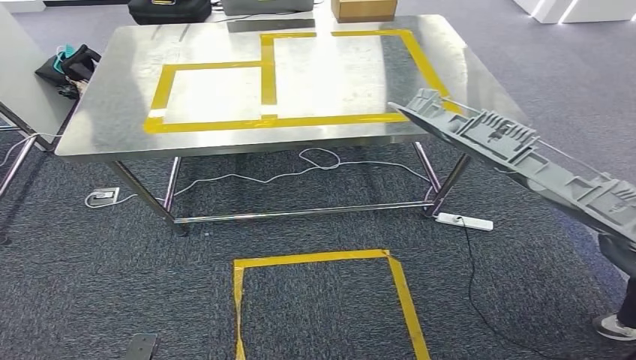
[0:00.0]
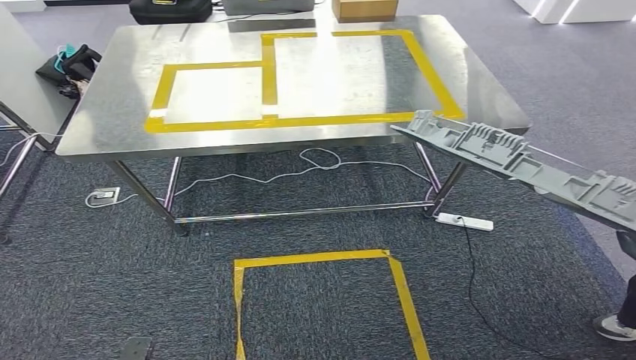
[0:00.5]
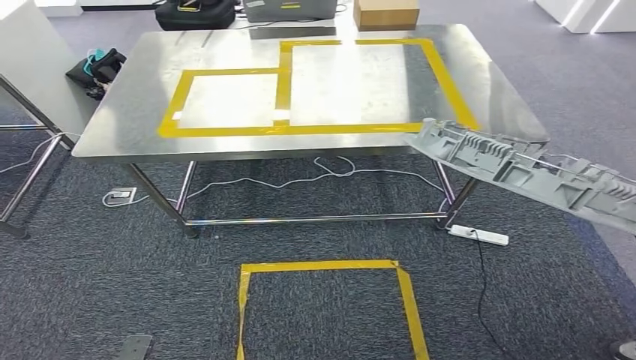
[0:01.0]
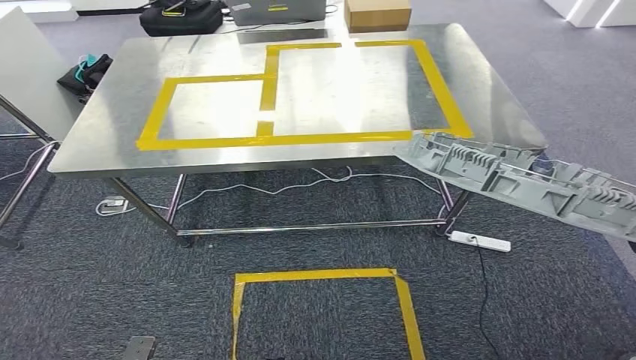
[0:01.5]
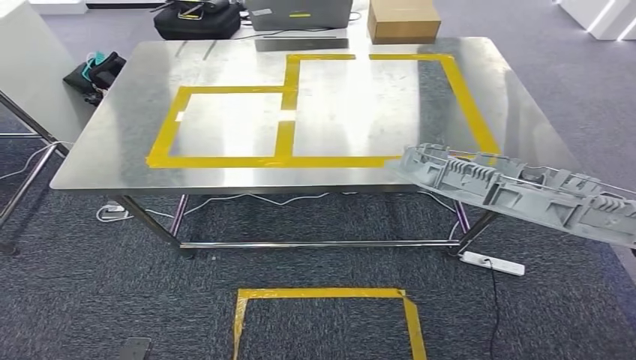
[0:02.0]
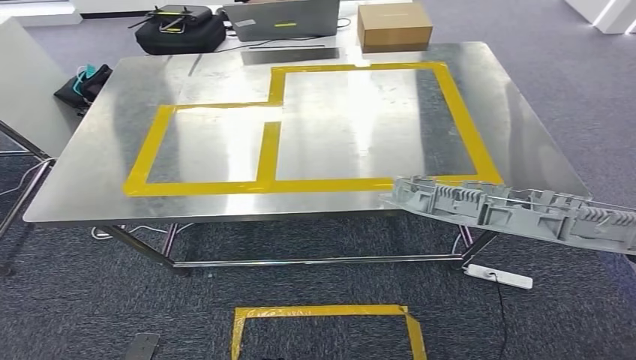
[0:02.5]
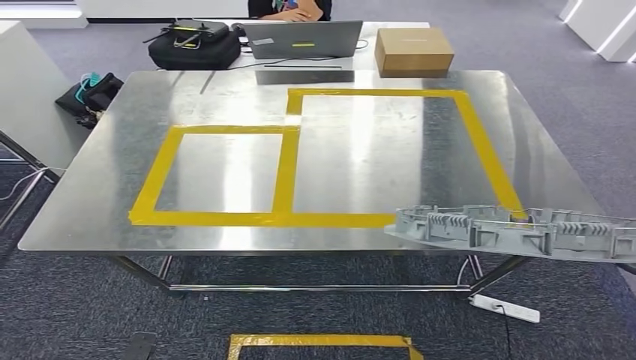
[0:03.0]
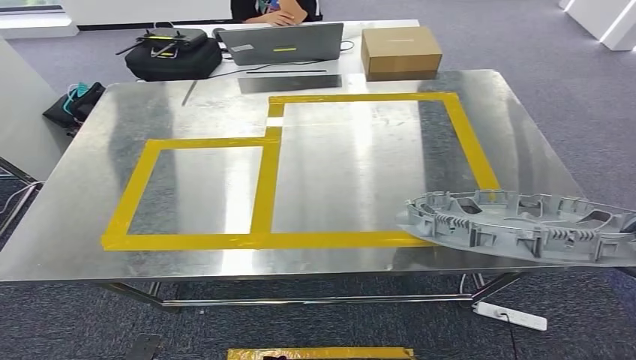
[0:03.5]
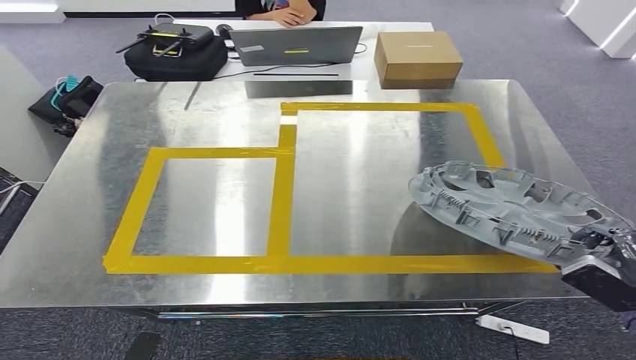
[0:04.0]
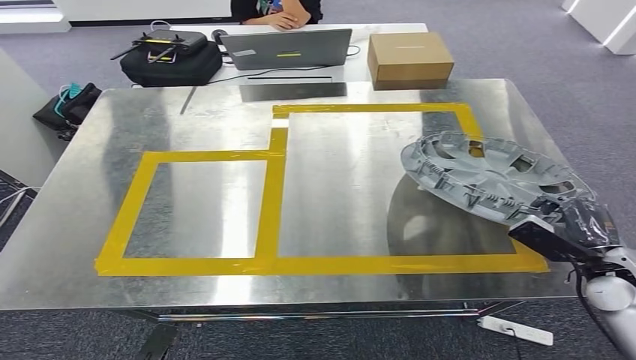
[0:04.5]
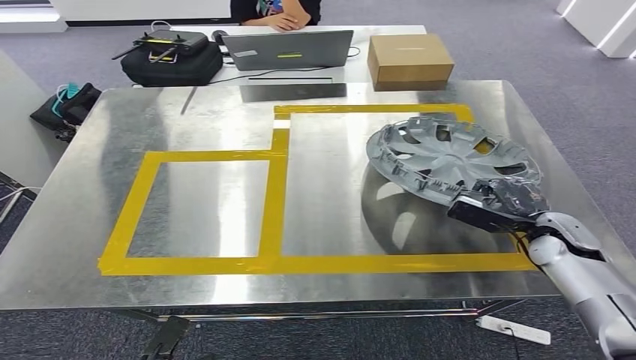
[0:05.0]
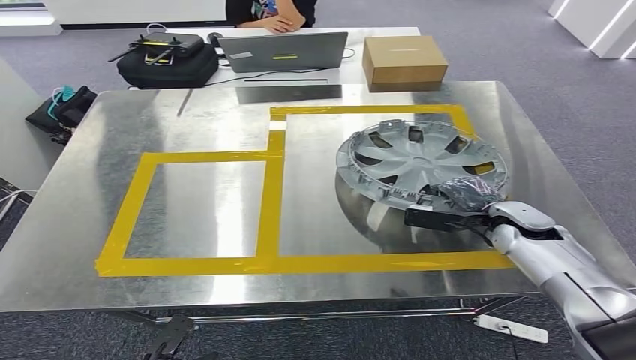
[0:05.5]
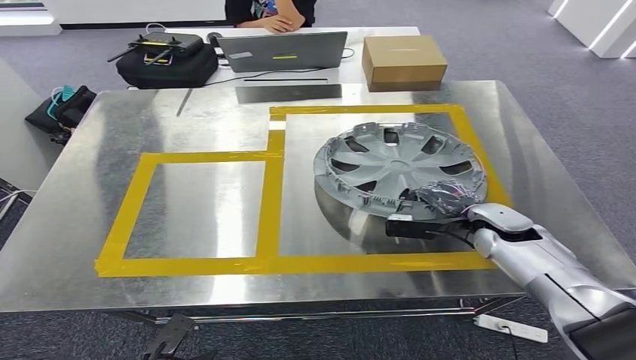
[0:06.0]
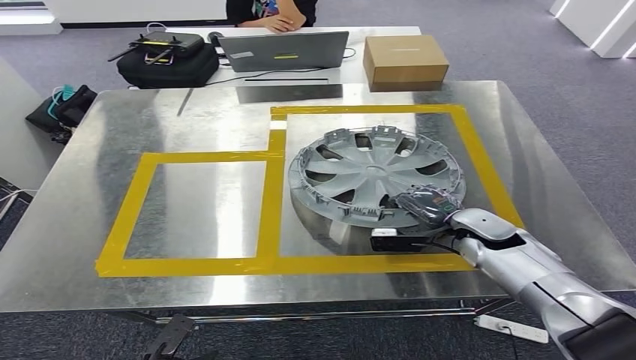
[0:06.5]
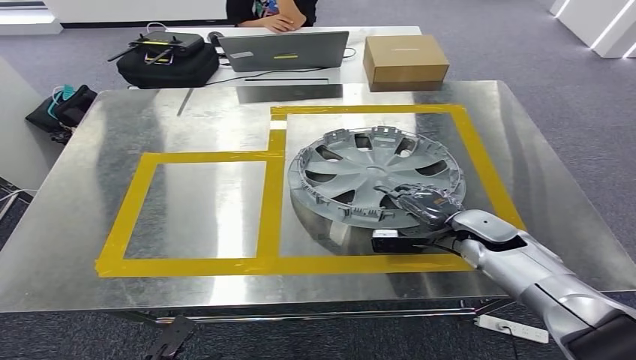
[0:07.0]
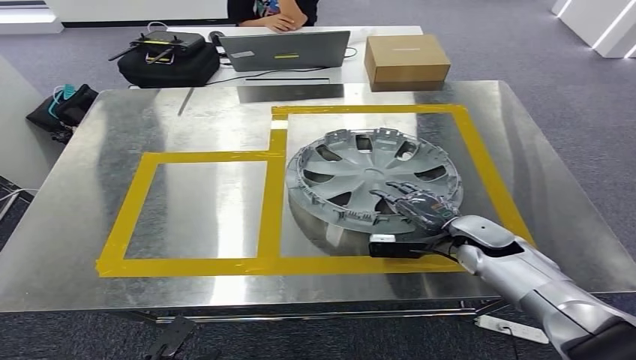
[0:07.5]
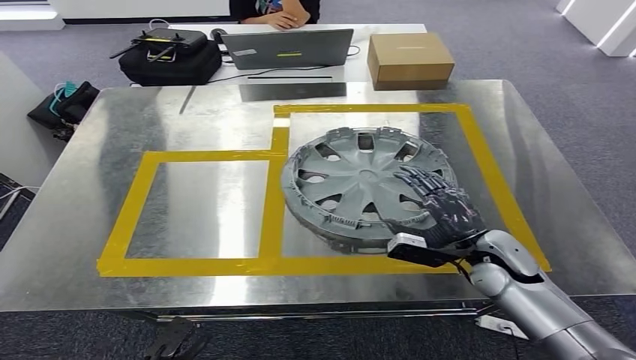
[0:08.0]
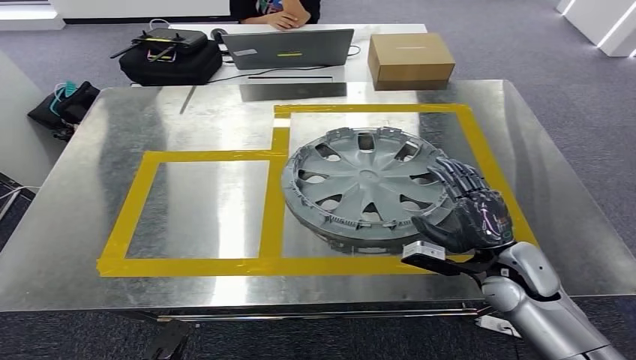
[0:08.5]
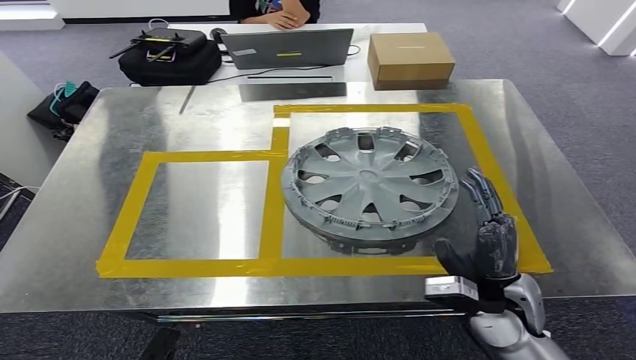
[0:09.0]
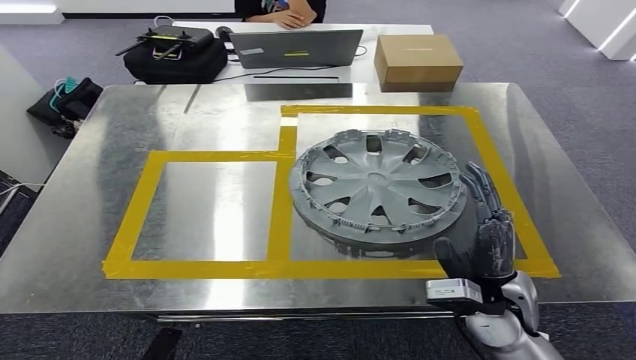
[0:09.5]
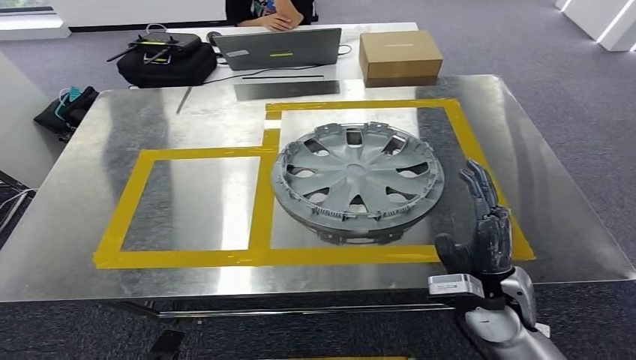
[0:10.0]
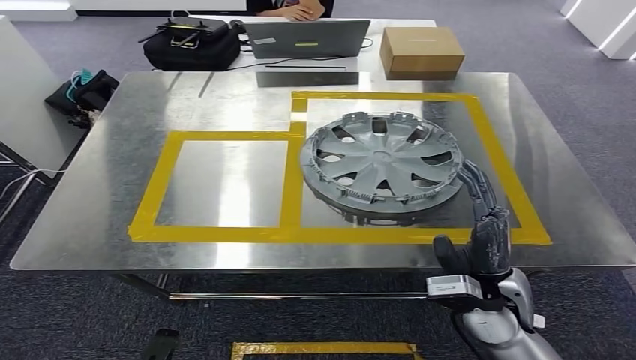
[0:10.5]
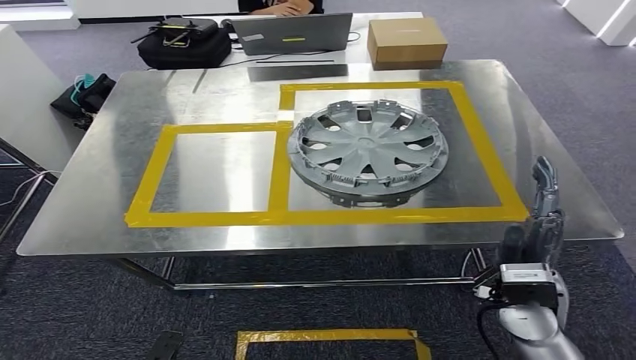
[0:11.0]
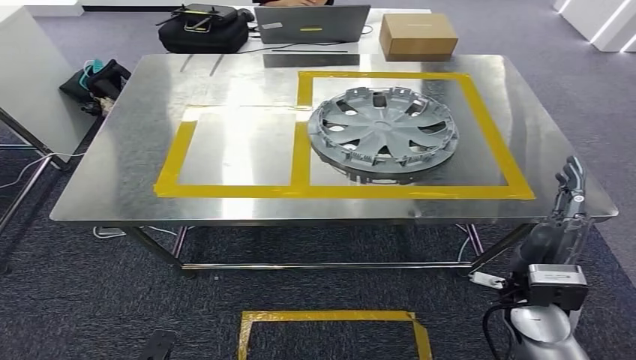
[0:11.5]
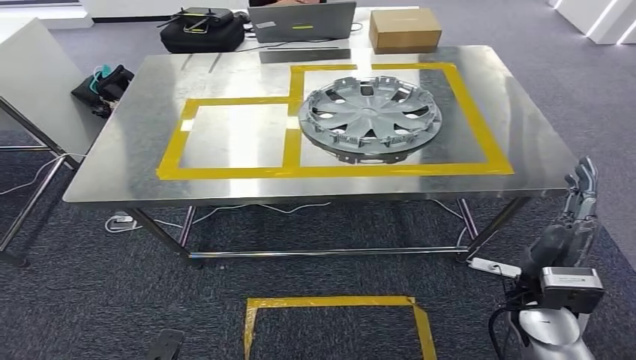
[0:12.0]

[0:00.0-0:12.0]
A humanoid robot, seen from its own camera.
Step, 0:01.5 to 0:09.5: Insert the small parts into the corresponding holes on the workbench.

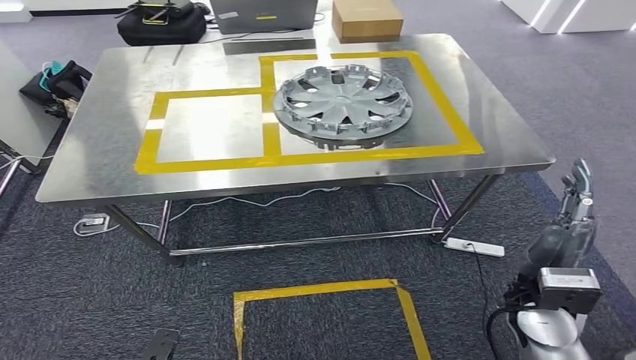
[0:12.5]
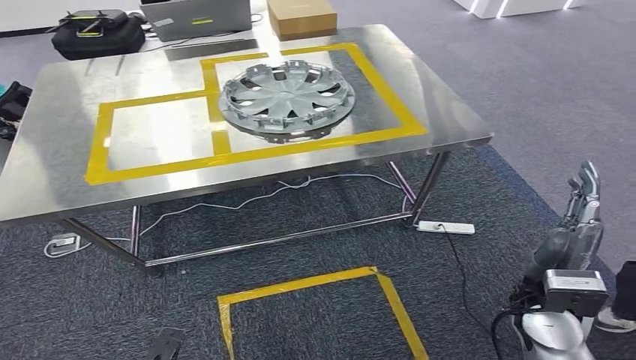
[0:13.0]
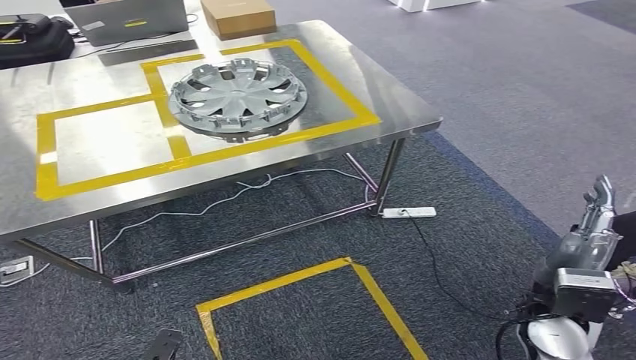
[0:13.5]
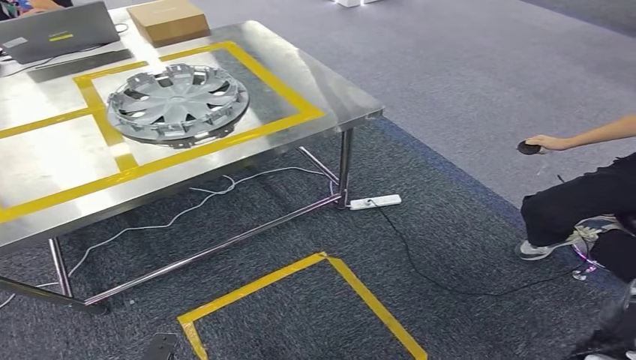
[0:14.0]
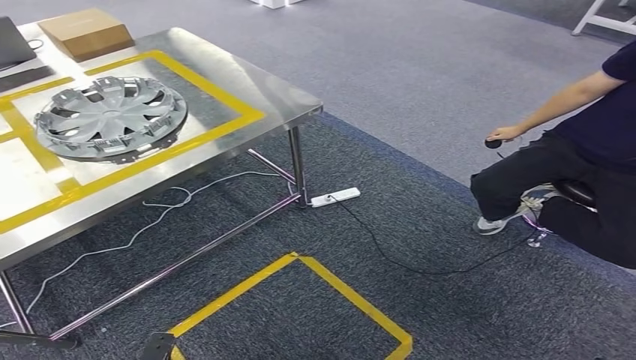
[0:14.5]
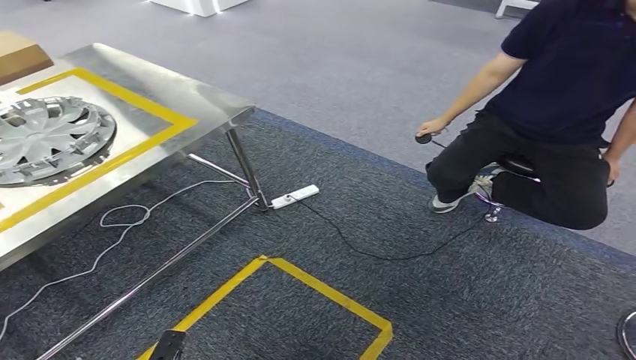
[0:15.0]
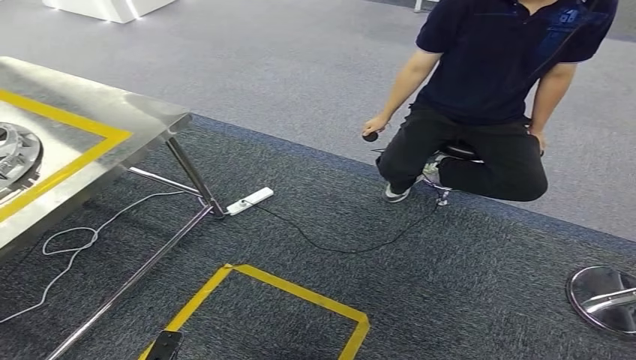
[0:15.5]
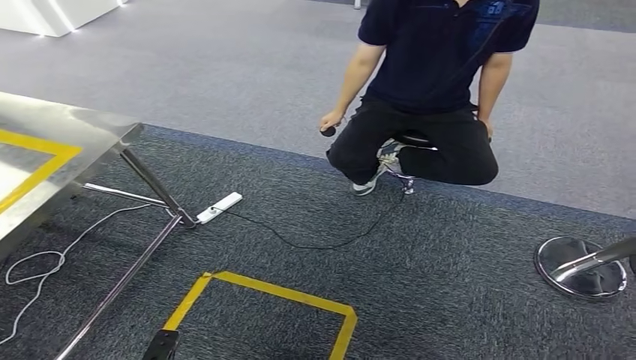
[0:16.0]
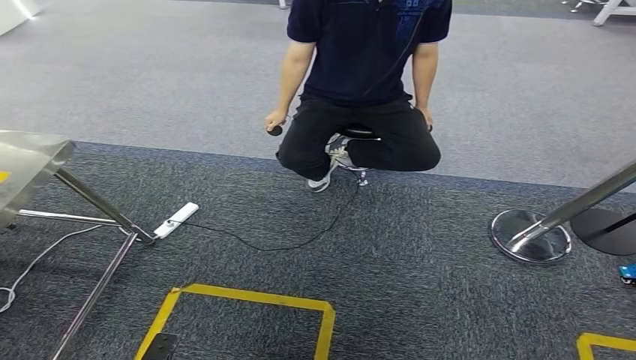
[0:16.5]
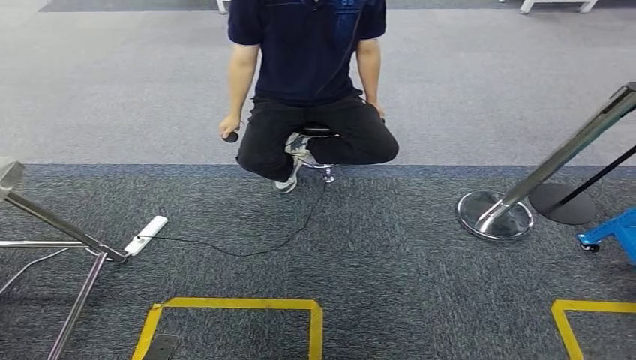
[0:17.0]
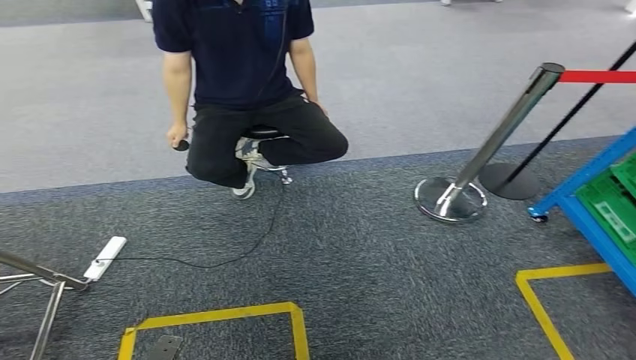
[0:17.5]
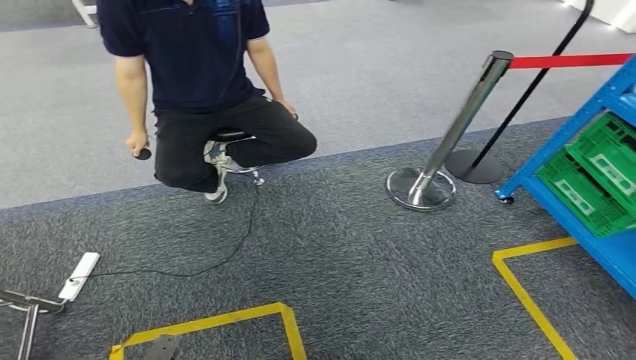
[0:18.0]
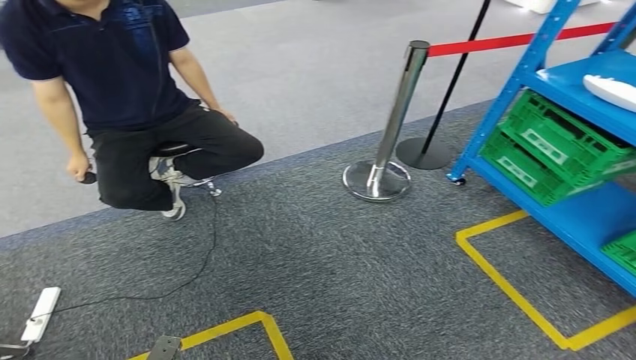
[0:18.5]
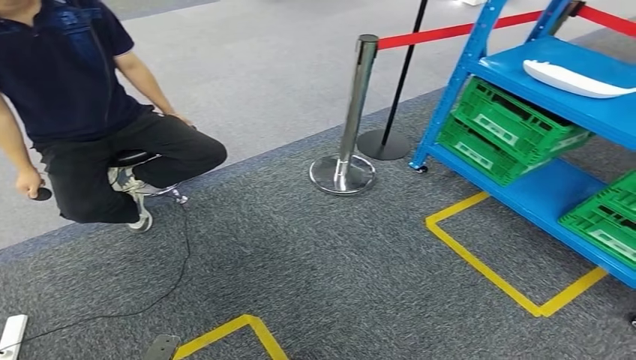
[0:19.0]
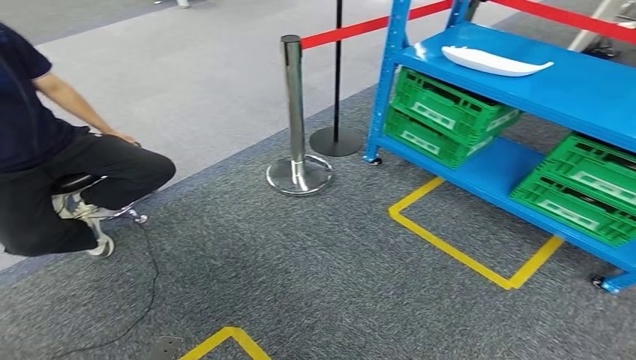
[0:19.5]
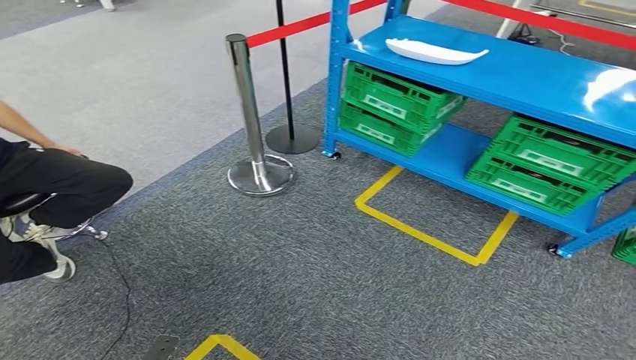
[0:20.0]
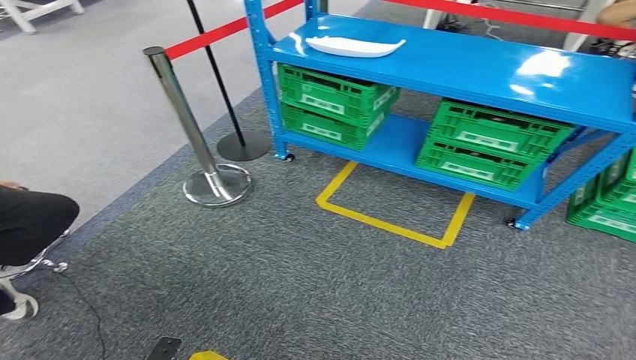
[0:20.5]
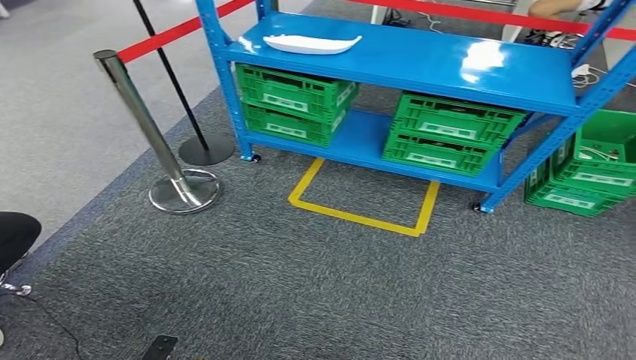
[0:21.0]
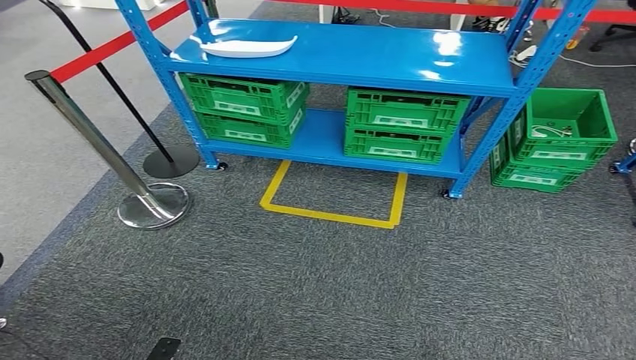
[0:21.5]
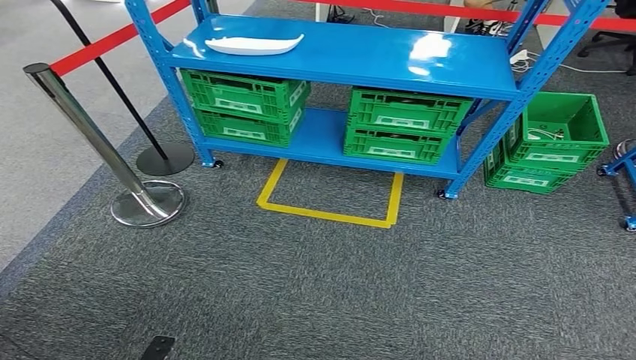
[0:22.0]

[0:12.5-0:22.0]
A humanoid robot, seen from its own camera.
Step, 0:12.5 to 0:22.0: Move to the initial position of the workbench.
